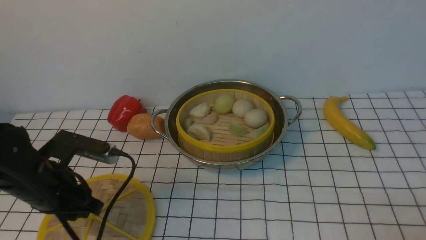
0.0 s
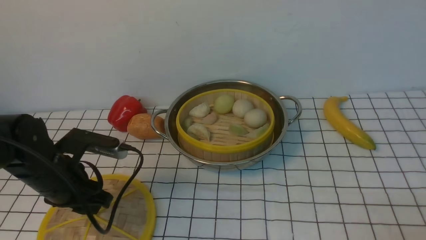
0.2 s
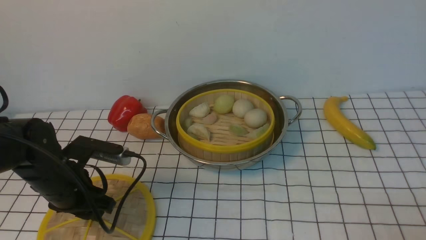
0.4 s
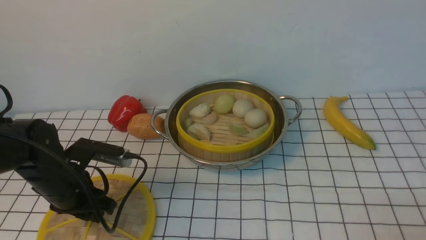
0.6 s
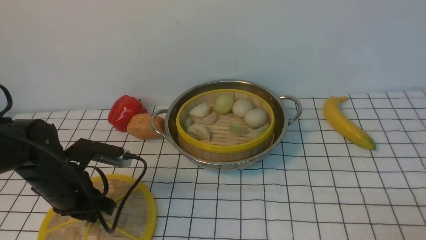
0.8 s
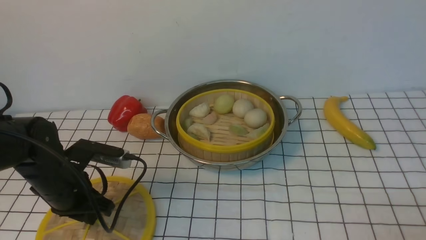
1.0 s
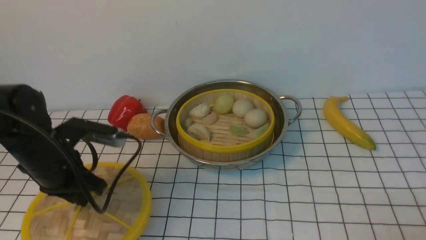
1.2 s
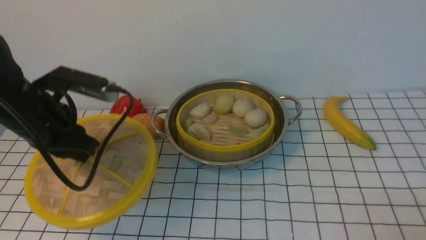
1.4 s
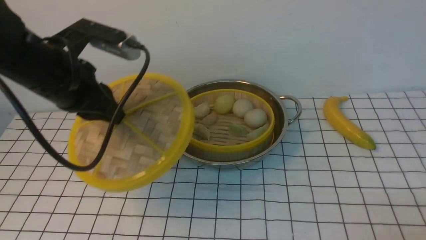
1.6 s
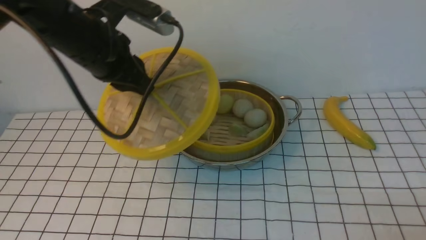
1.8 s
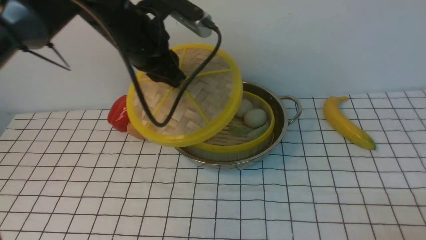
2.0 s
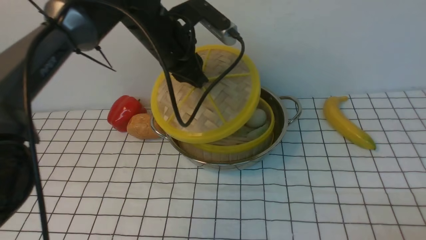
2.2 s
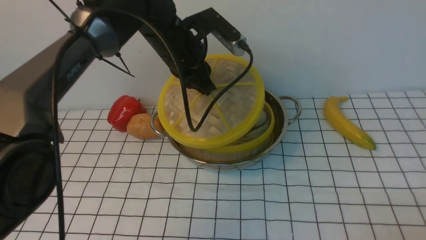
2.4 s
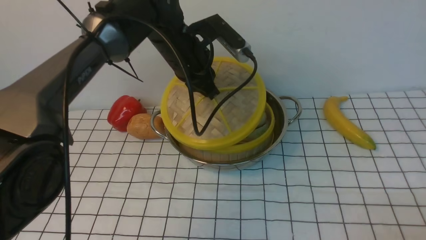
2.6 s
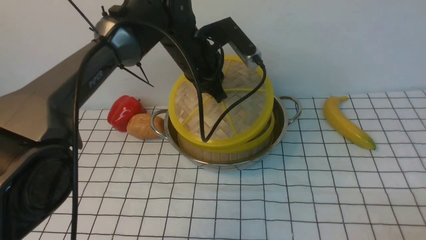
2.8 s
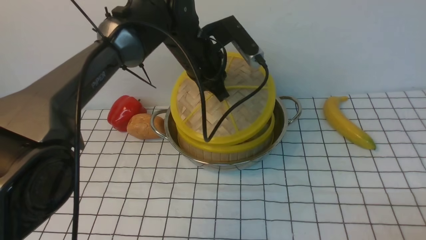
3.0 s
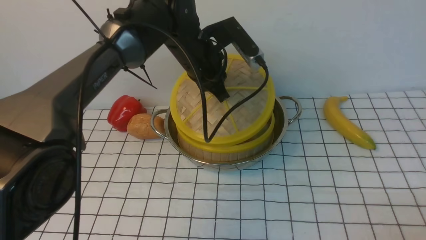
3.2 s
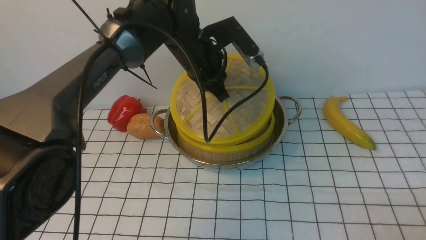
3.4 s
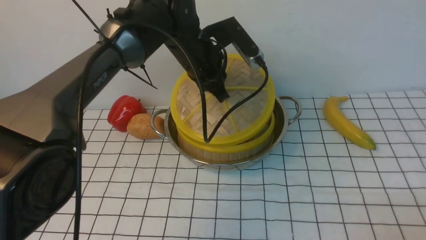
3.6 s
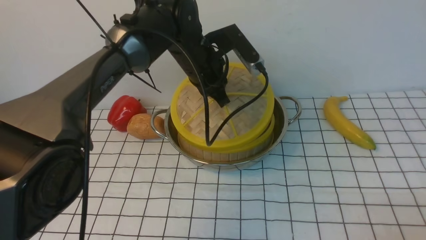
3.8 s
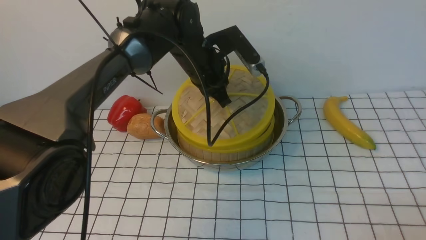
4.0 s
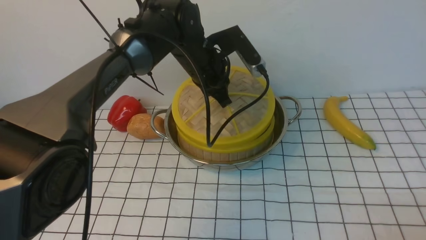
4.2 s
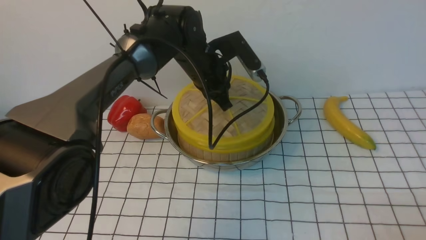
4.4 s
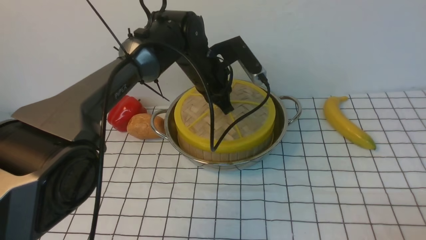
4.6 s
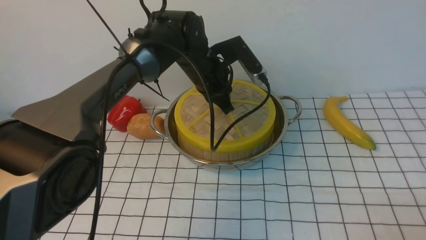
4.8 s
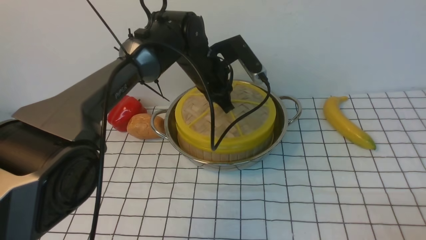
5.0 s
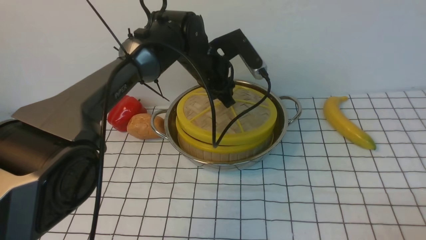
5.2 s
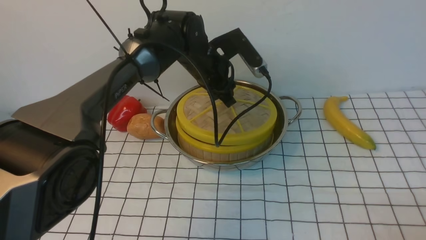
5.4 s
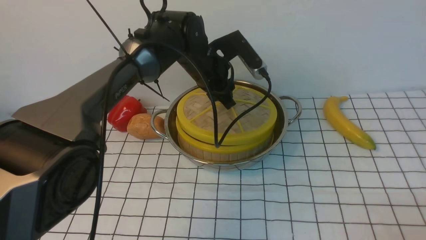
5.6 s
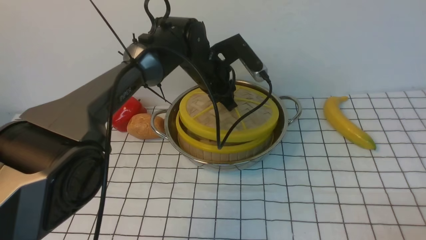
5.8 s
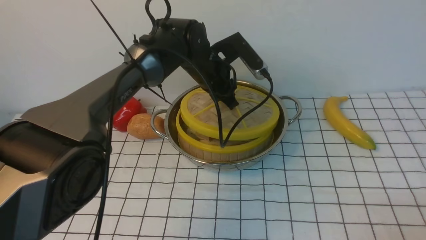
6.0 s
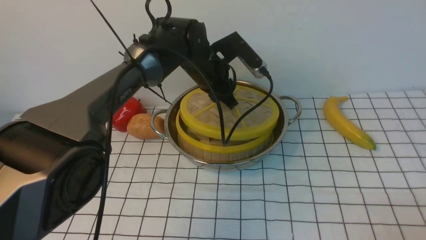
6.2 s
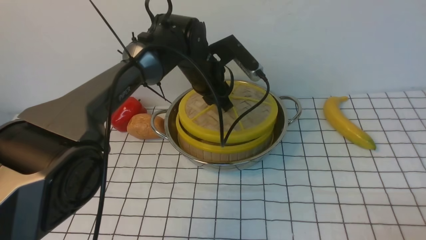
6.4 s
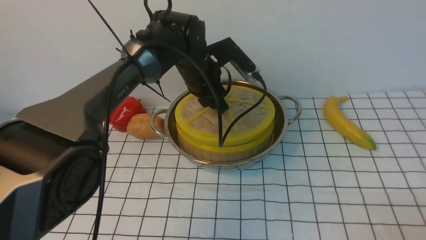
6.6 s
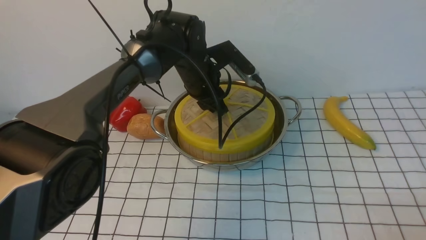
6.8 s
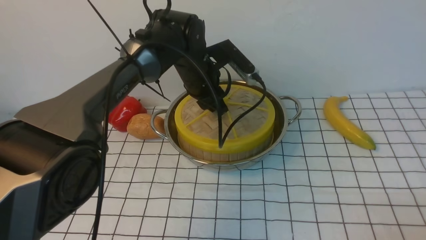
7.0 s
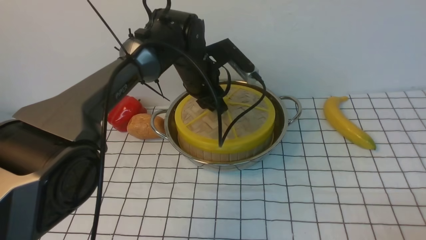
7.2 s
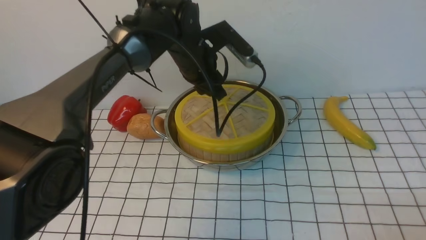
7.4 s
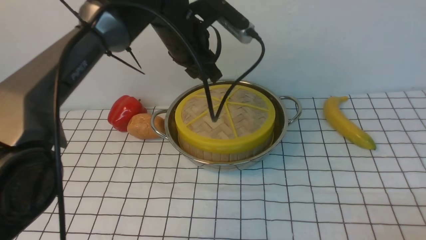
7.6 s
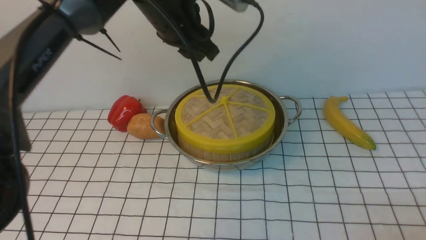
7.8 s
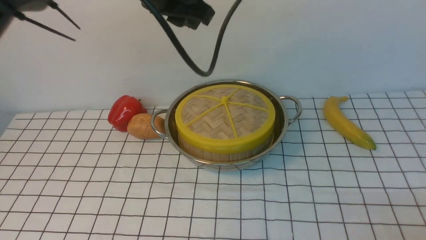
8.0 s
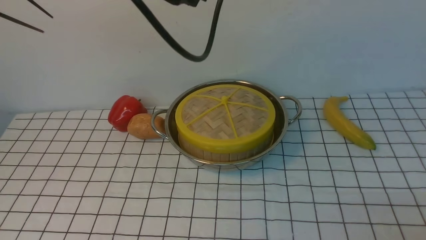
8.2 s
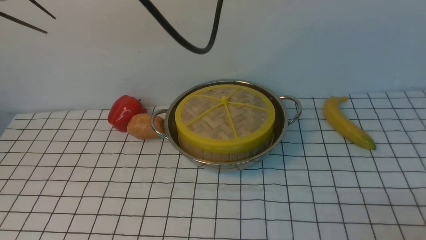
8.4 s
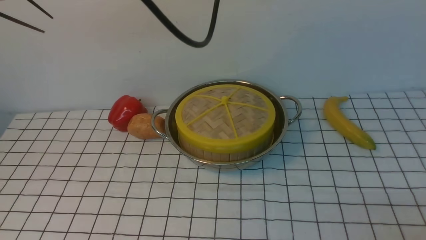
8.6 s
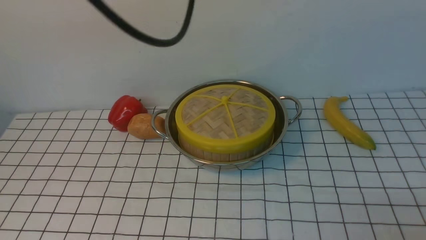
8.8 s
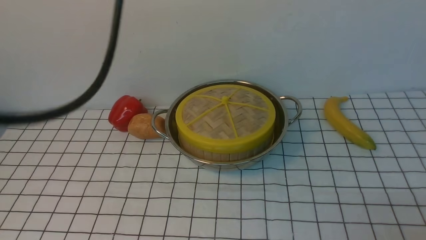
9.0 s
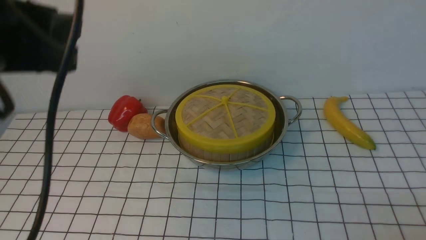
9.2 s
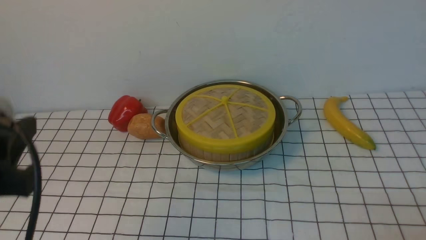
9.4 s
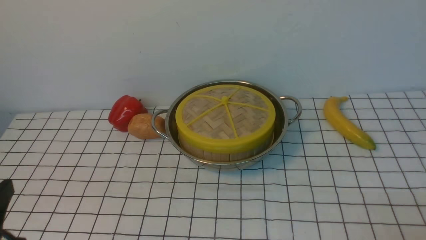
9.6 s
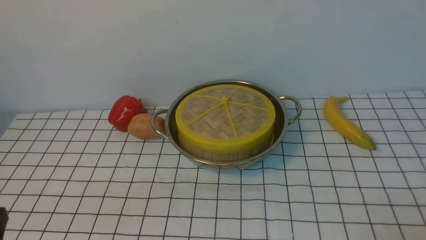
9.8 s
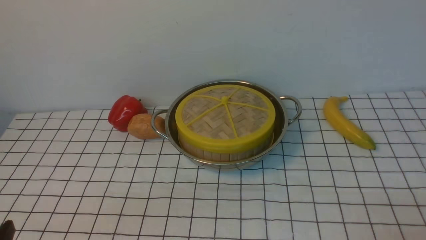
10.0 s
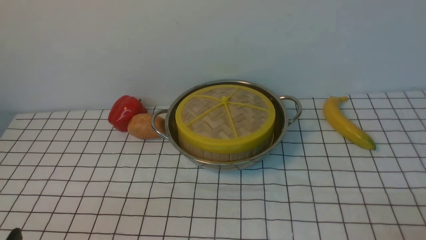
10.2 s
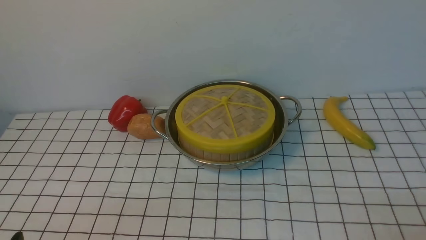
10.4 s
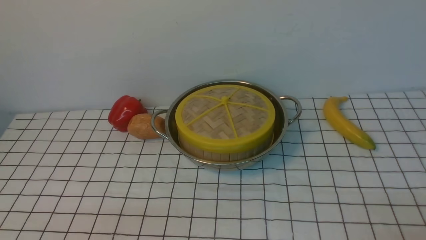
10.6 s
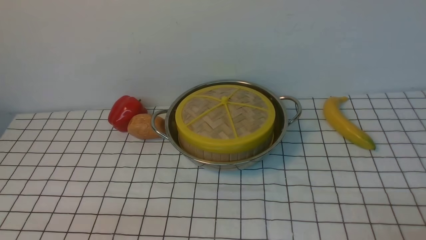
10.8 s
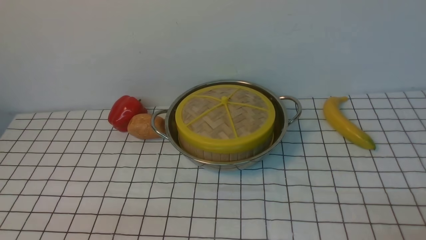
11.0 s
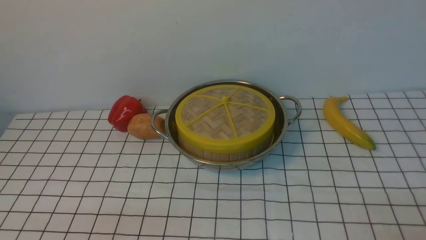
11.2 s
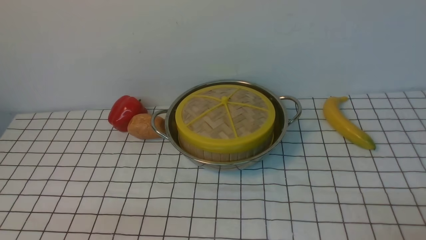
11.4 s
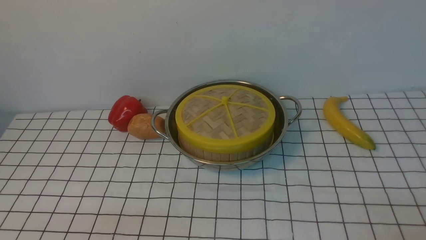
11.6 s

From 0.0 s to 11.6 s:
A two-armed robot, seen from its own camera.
Task of the whole recording: place the steamer in the pot on the white tablecloth, and put the lid on the steamer.
Step, from 1.4 s to 7.6 s: use the left arm to place the steamer lid on the steamer.
From 0.0 s to 1.4 s: The left gripper goes about 10 cm upward and forward, and closes up.
From 1.4 s to 2.8 s: The left gripper travels to the right and forward by some 20 cm.
From 4.4 s to 5.8 s: The left gripper opens.
From 5.8 s to 7.2 s: There are only small adjustments of the grippers.
From 7.2 s to 8.8 s: The left gripper goes roughly 30 cm upward and backward.
From 8.8 s to 10.2 s: The left gripper is displaced downward, backward and to the left by roughly 40 cm.

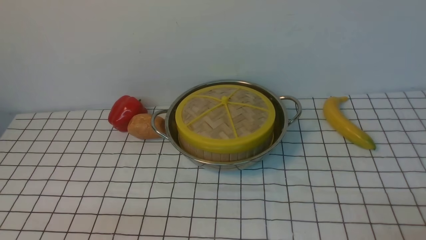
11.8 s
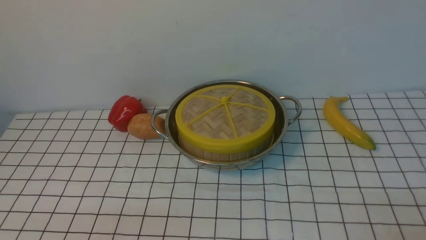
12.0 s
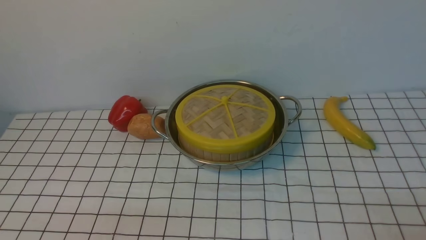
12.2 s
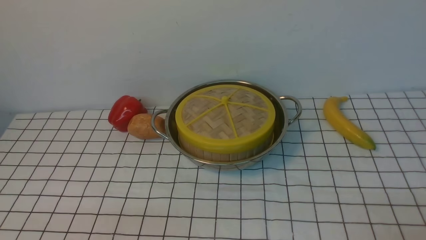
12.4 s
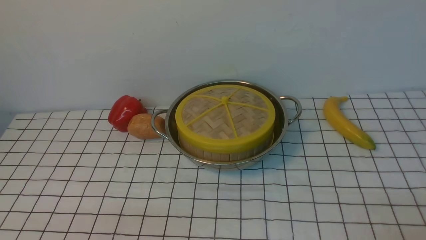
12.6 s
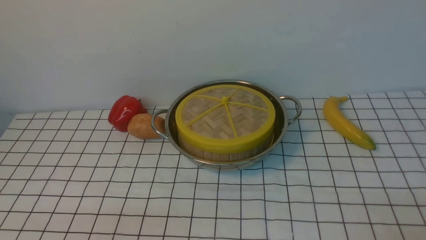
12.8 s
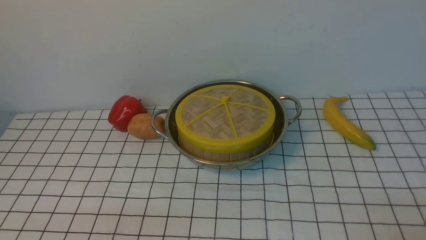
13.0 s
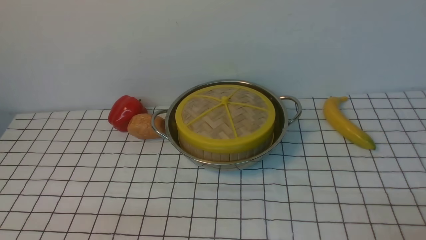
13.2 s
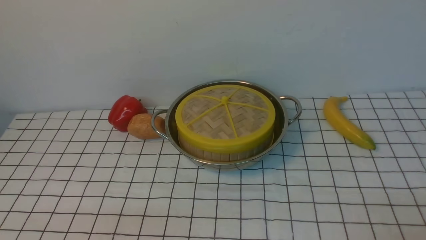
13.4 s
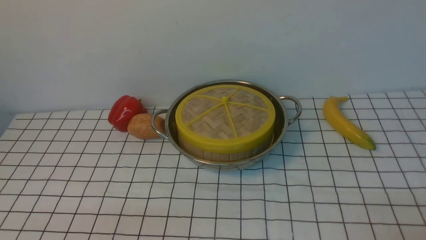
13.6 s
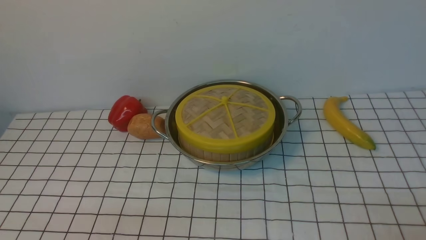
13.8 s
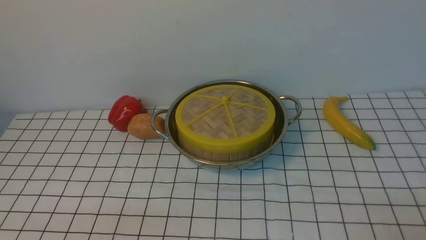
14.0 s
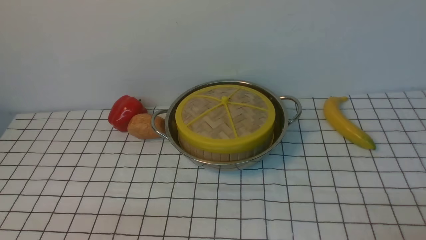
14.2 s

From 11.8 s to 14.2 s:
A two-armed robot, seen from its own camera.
Task of the whole recording: place the steamer in the pot on the white tablecloth, and put the lid on the steamer.
From 11.8 s to 14.2 s: The two grippers keep their place.

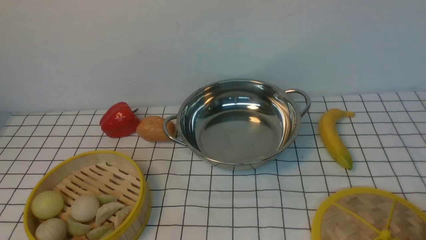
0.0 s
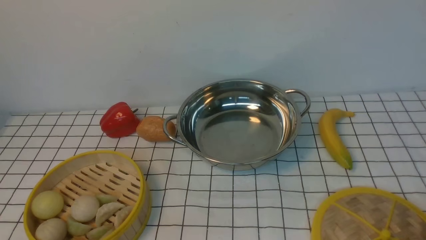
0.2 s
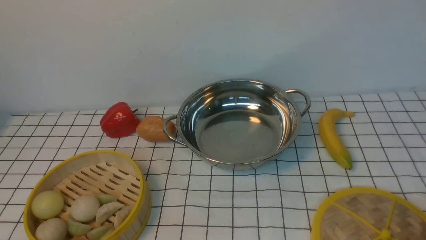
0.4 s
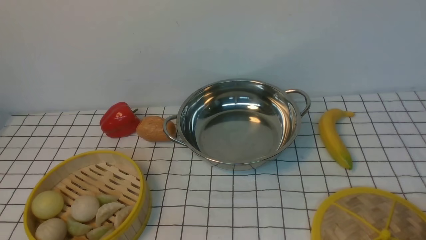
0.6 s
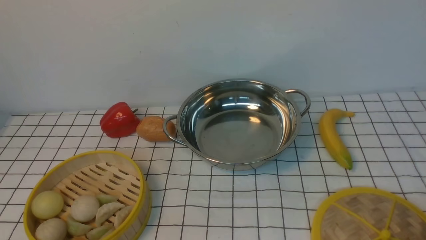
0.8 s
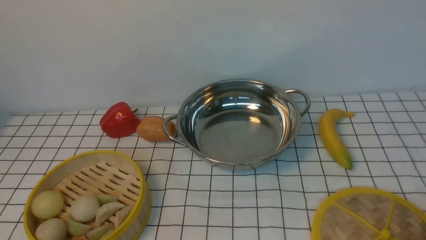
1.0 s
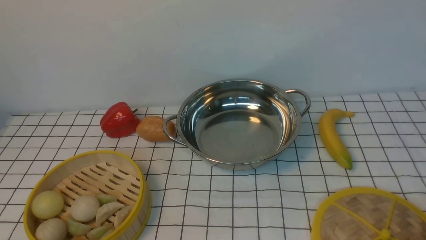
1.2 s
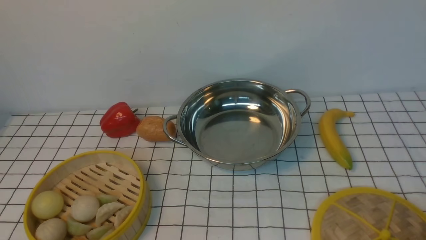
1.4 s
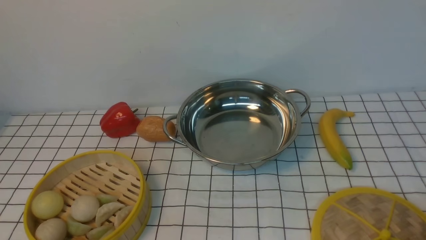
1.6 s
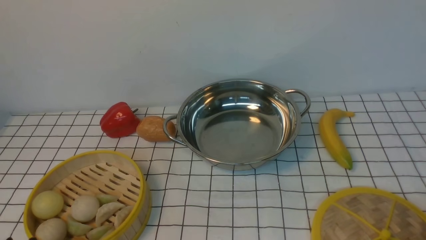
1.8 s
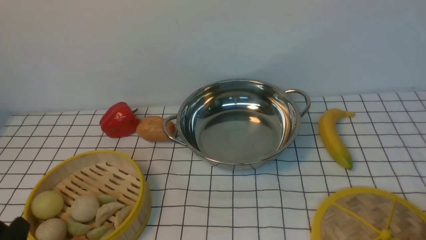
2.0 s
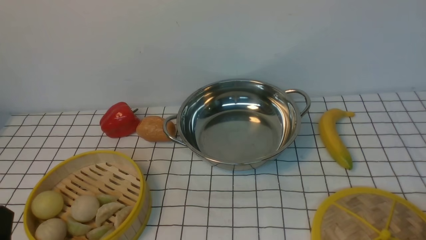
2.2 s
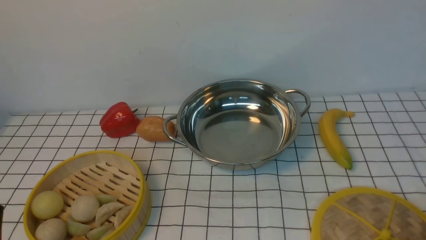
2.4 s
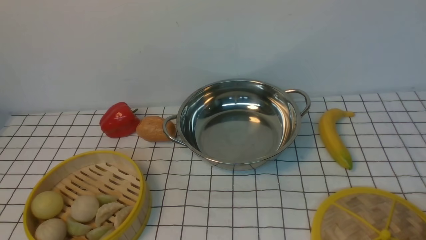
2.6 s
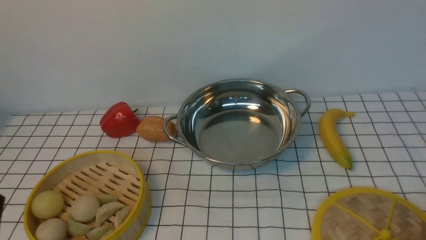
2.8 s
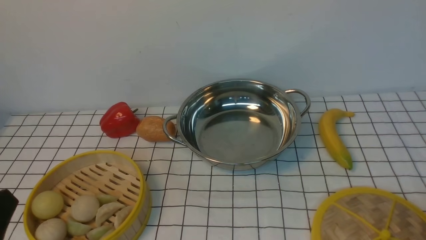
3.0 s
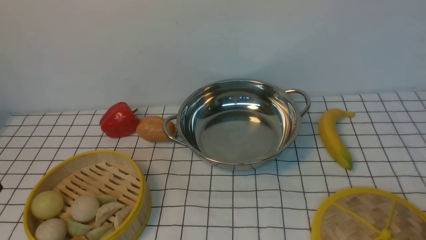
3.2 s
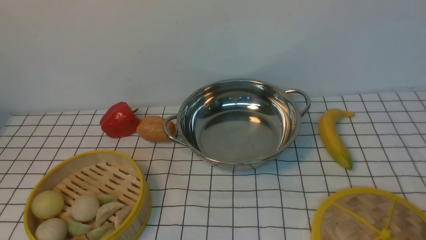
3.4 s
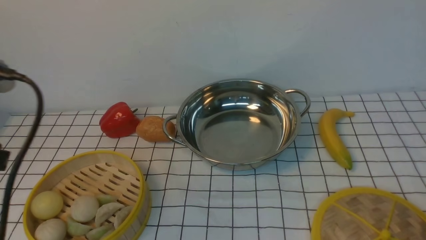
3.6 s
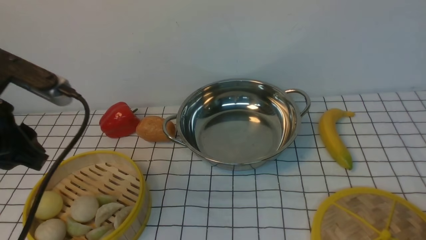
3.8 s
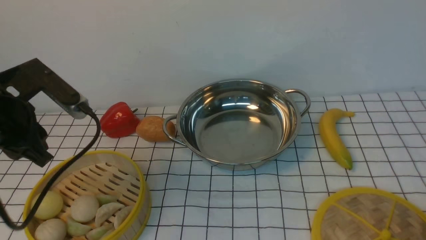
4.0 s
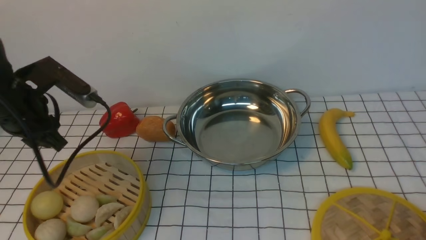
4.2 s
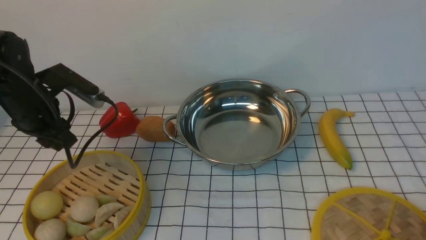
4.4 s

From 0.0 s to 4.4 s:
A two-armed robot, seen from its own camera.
Task of the whole recording: place the steamer in the pot on the white tablecloth, and put the lid on the steamer.
From 0.0 s to 1.4 s: Neither gripper changes place.
From 3.0 s to 4.4 s: The left gripper travels forward by about 30 cm.
